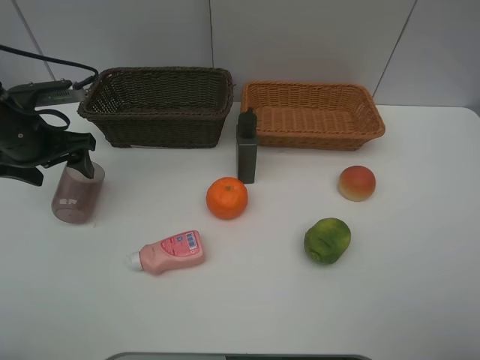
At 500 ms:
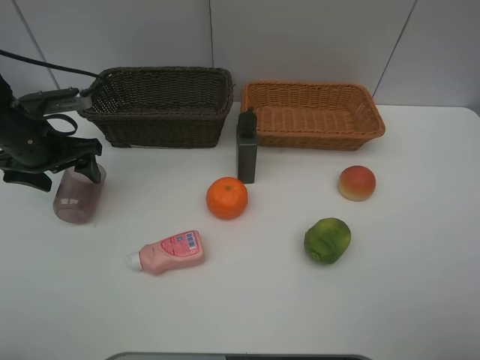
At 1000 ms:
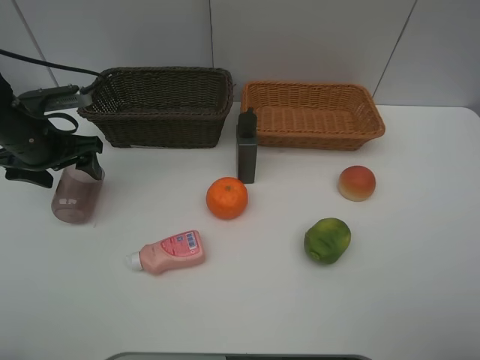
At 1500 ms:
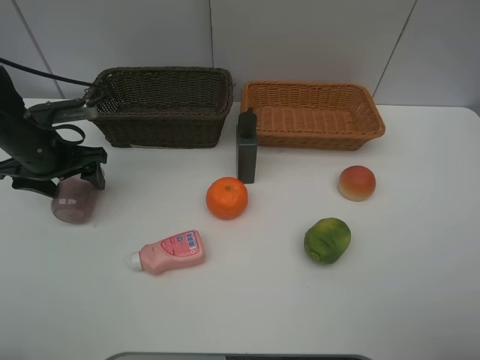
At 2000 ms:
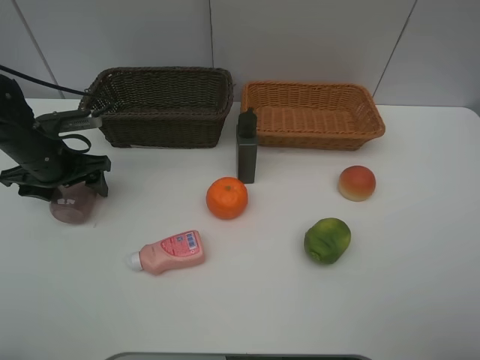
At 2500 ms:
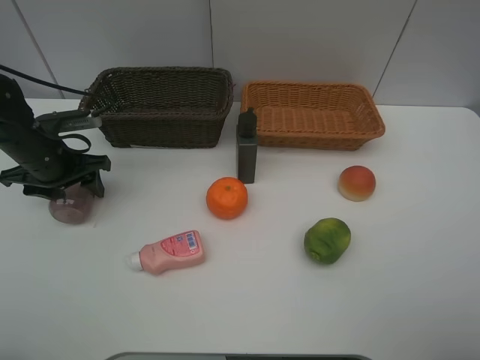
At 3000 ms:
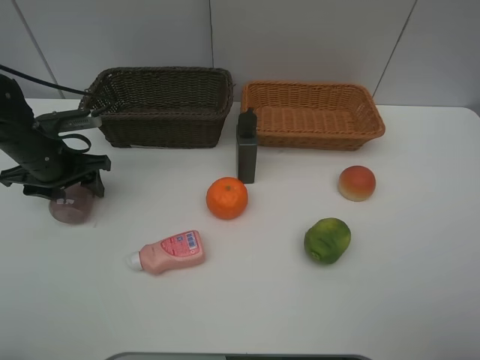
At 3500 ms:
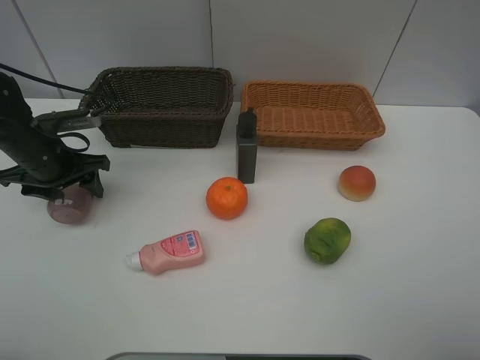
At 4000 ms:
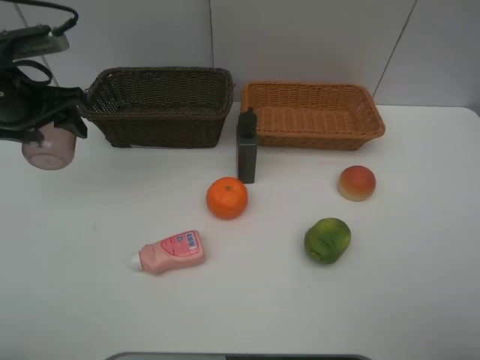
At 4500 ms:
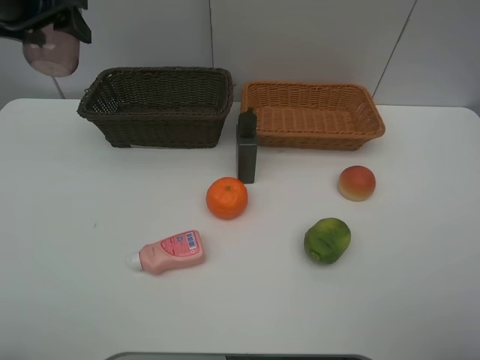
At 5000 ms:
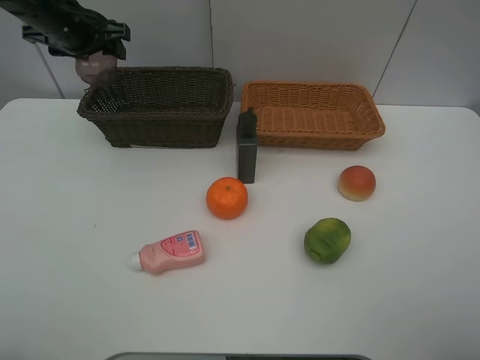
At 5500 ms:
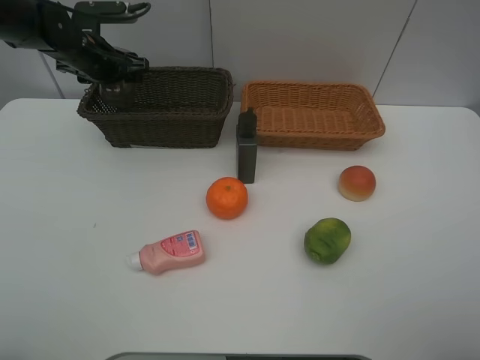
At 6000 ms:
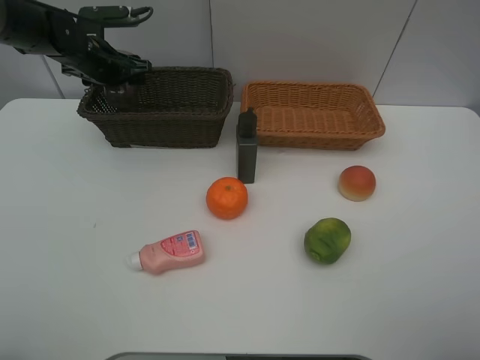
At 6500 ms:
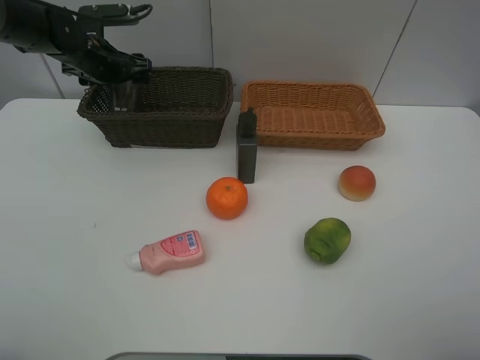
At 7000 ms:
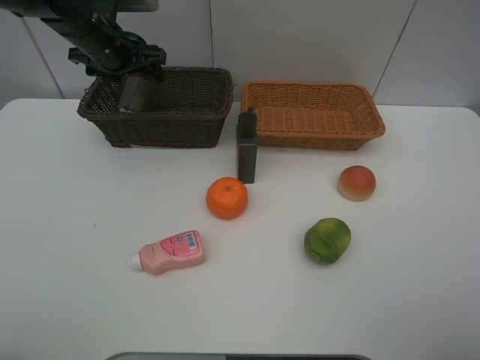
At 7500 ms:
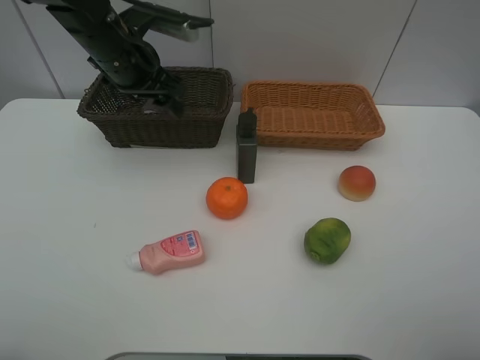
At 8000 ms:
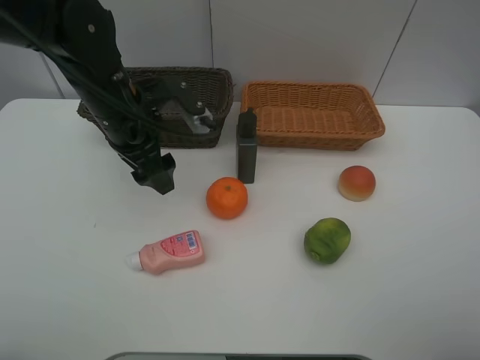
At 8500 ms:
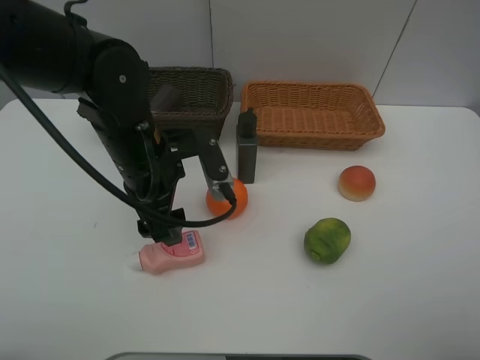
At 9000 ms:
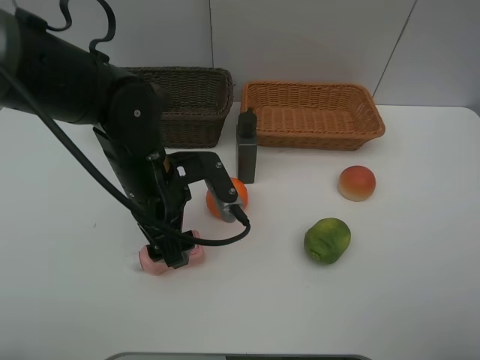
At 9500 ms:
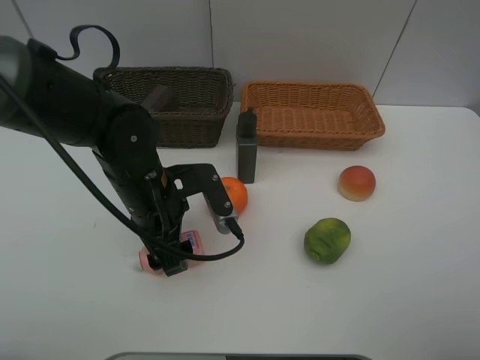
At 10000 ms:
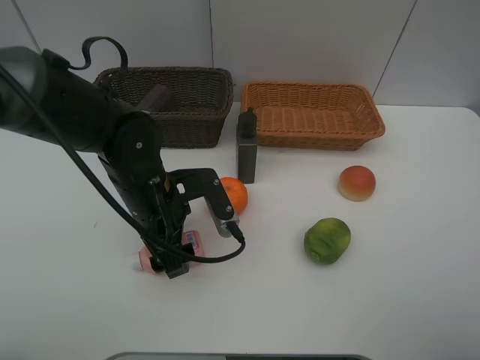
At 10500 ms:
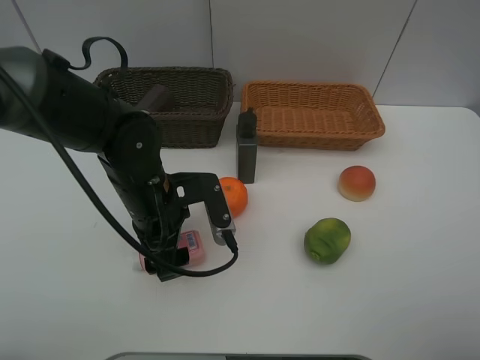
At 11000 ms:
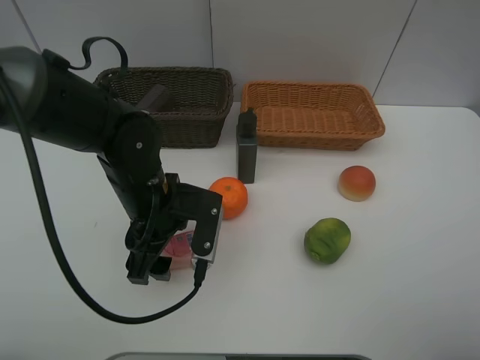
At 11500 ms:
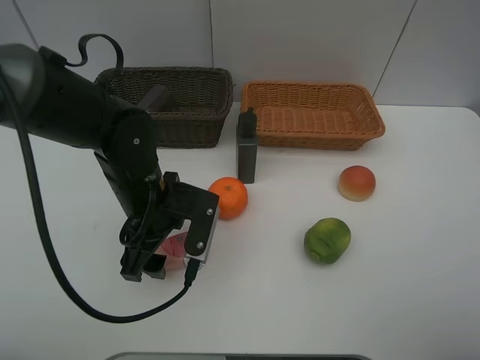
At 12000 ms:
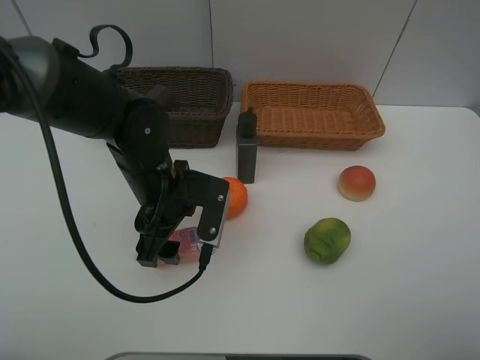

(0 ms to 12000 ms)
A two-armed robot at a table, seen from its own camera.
Task of the whole recording: place multiple objects separately in different baskets.
0 ms - 2000 ms: The left gripper is displaced downward by roughly 5 cm.
2000 ms - 4000 ms: The left gripper shifts approximately 10 cm upward, and closes.
4000 ms - 6000 ms: The left gripper is displaced forward by about 15 cm.
6000 ms - 8000 ms: The left gripper moves backward and to the right, roughly 20 cm, and opens up.
8000 ms - 10000 ms: The left gripper shifts about 10 cm downward and backward.

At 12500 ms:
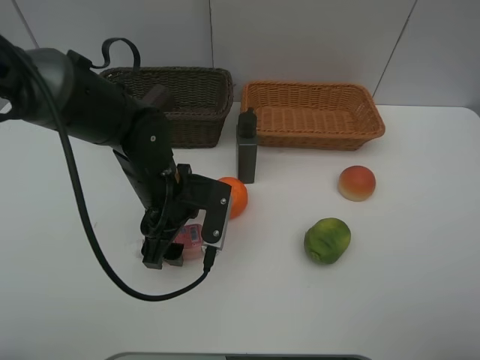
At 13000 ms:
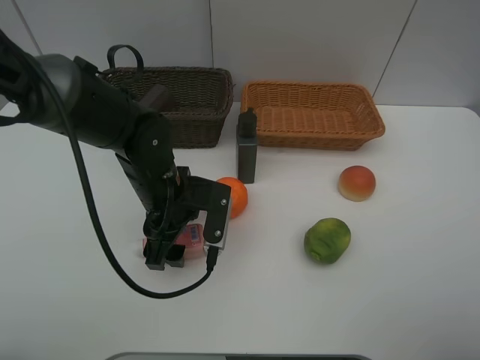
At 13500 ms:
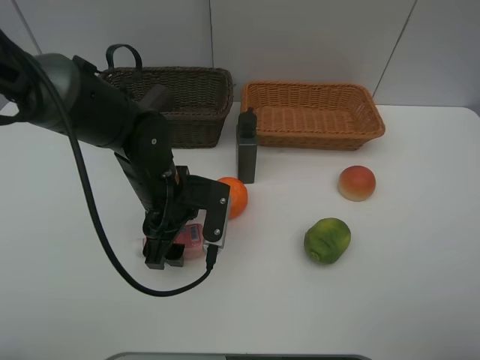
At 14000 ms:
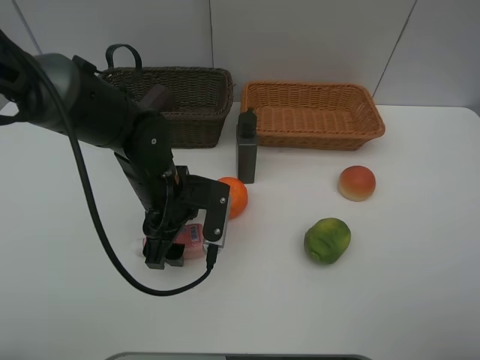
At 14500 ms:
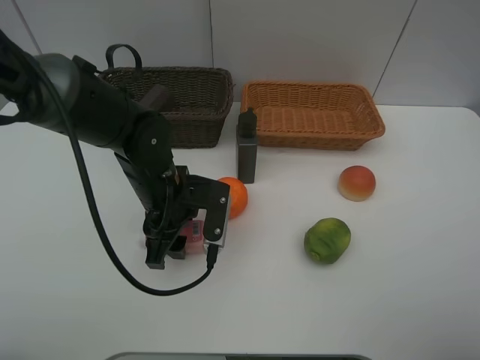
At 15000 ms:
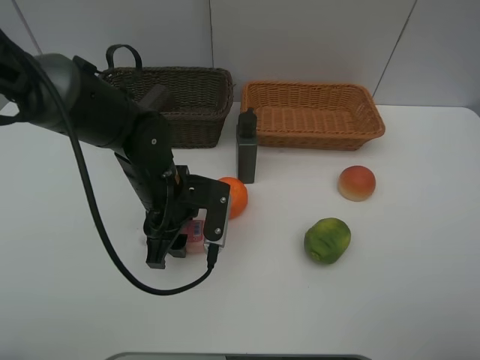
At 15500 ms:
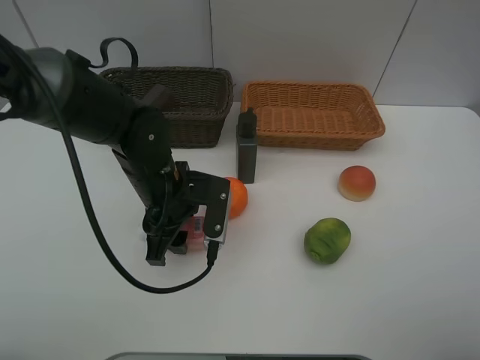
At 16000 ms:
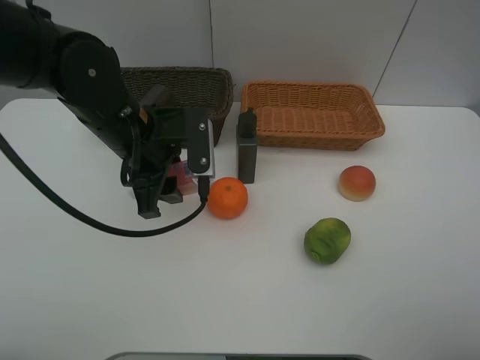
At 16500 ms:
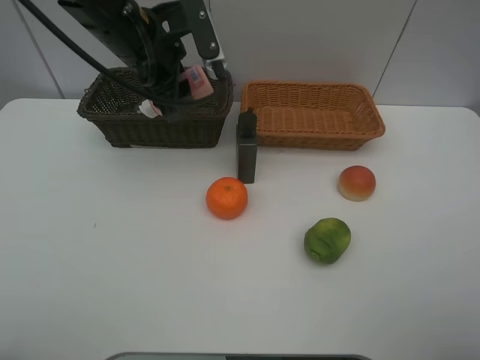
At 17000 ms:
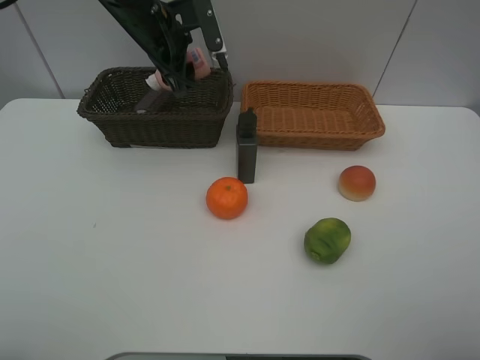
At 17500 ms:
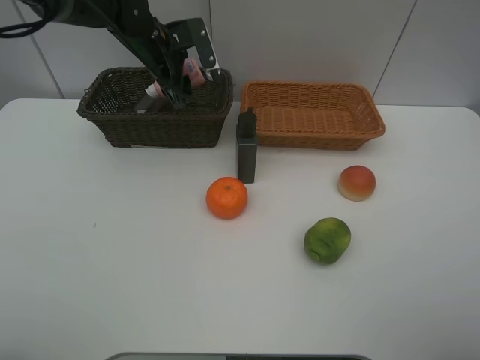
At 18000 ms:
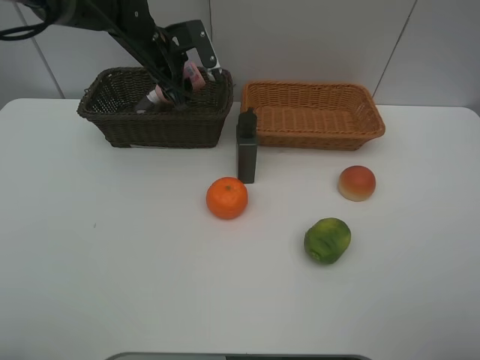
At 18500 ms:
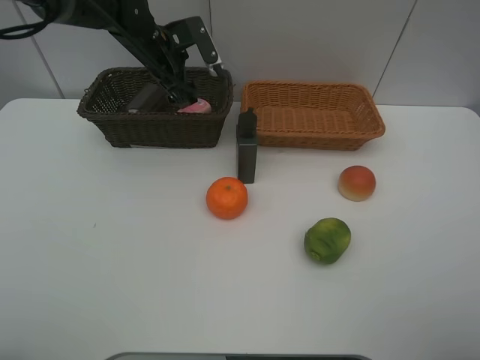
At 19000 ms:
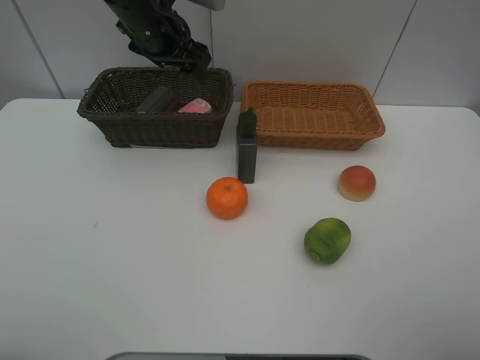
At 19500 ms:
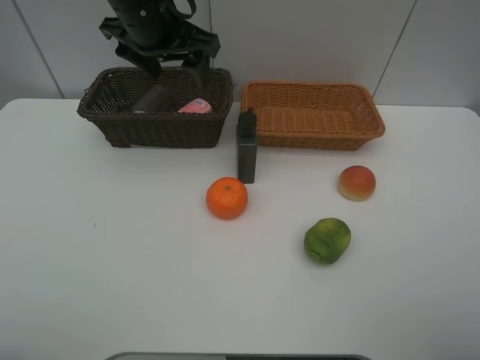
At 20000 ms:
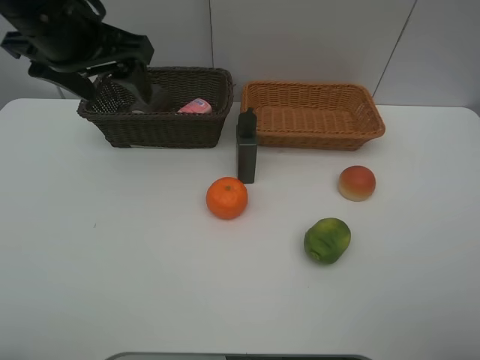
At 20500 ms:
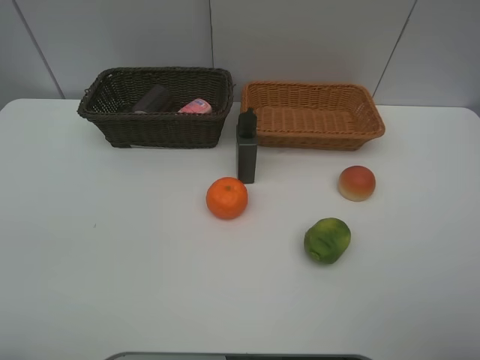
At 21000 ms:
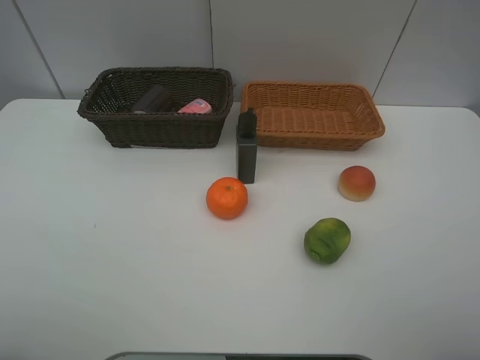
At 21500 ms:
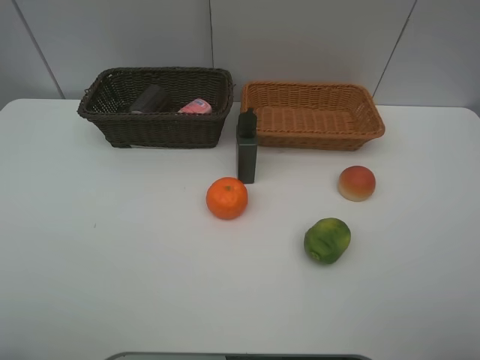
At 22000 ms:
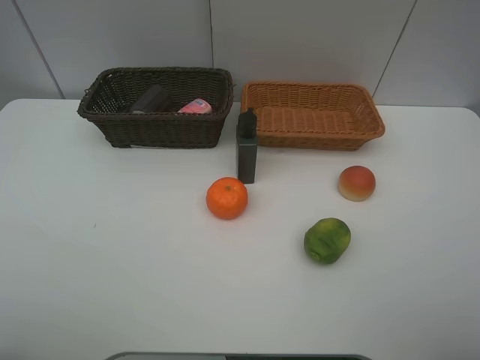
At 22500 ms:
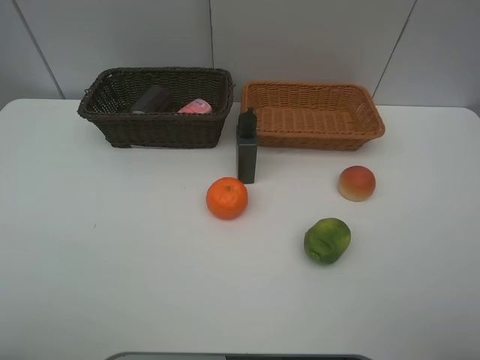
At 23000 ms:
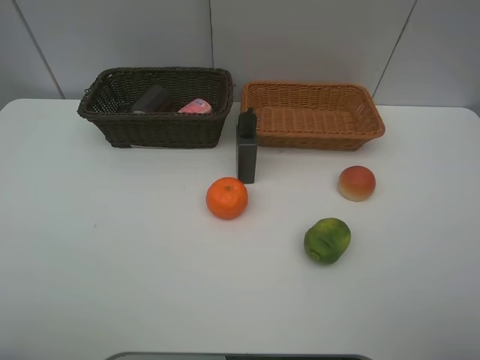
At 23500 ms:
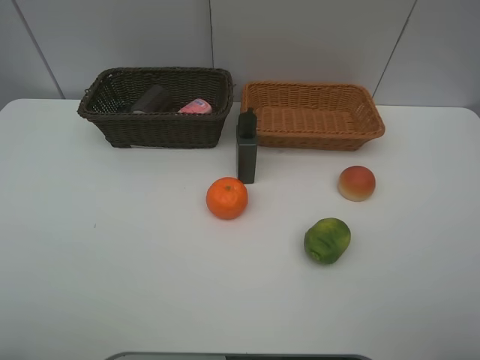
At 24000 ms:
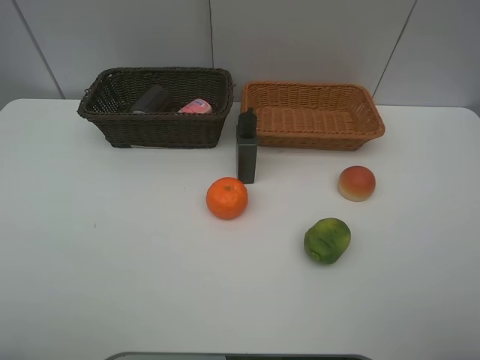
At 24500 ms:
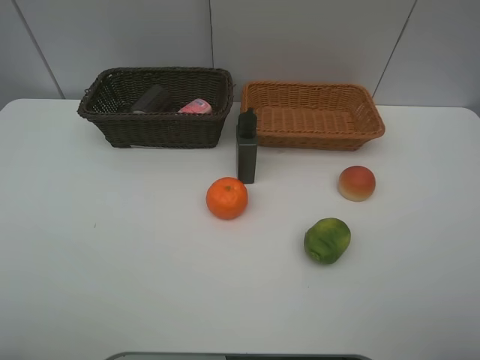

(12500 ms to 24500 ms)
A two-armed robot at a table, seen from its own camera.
Task of the whole recording: place multiple objects separately in different baskets.
12500 ms - 14500 ms: The left gripper closes its fingers.
14500 ms - 16500 ms: The left gripper moves upward and forward, approximately 20 cm.
16500 ms - 18500 ms: The left gripper is displaced forward and downward by about 15 cm, and opens up.
18500 ms - 20500 ms: The left gripper goes roughly 35 cm backward, upward and to the left.

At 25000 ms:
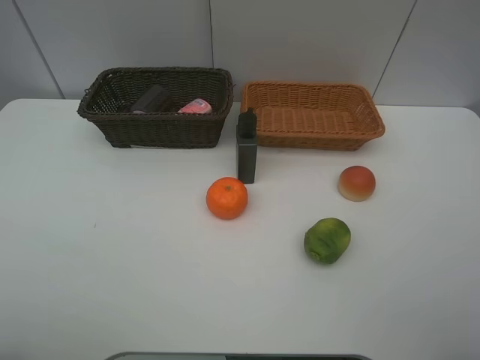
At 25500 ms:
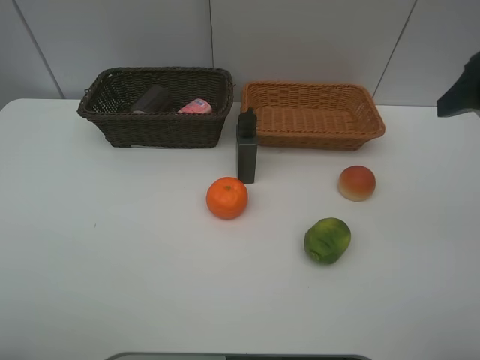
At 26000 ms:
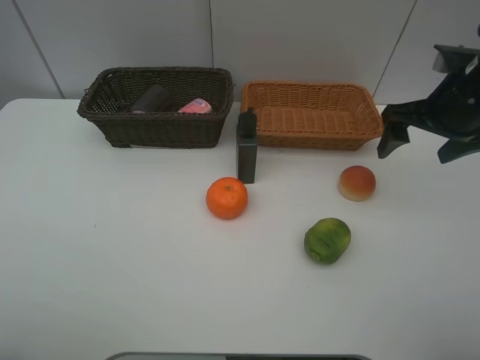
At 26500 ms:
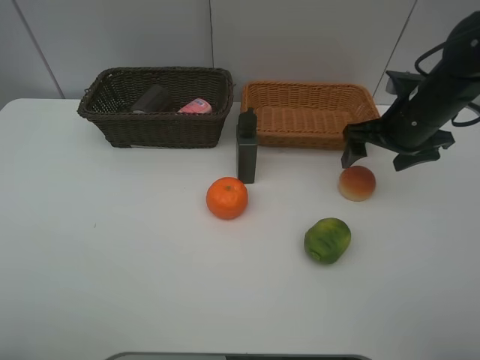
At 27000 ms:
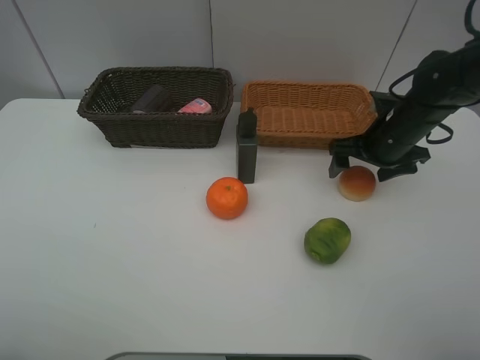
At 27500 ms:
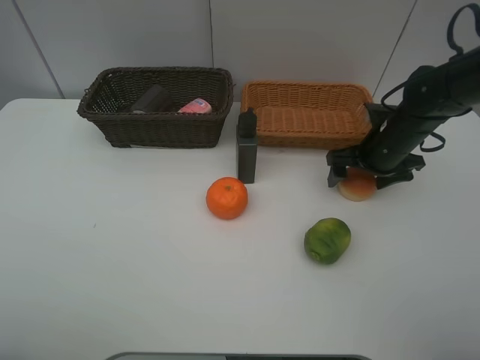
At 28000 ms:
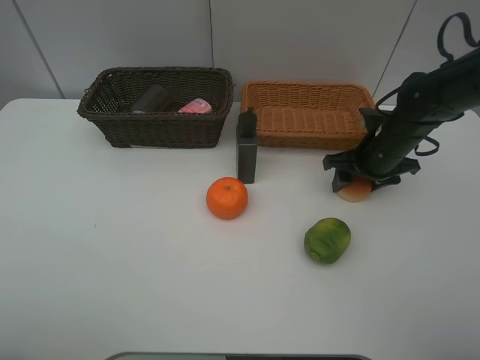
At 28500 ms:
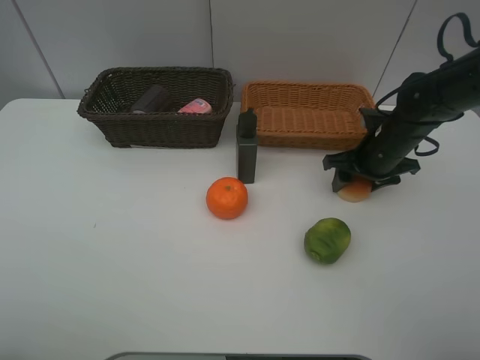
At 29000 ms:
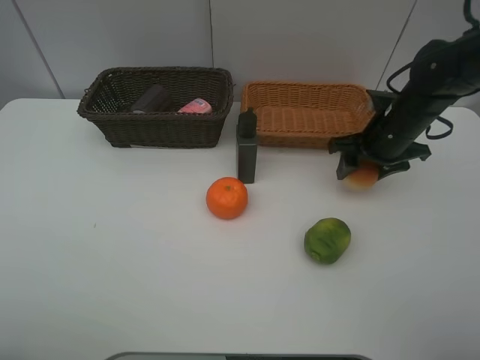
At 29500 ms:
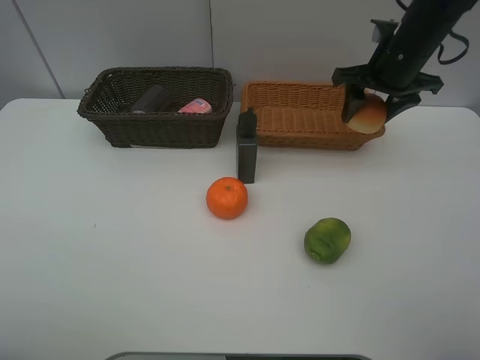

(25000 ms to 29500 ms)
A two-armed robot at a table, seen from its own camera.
Task of the whole recording: place multiple objects separately in different baskets.
25000 ms - 27000 ms: The right gripper goes about 35 cm forward and downward.
27000 ms - 29500 ms: The right gripper shifts approximately 10 cm upward and forward, and closes.
